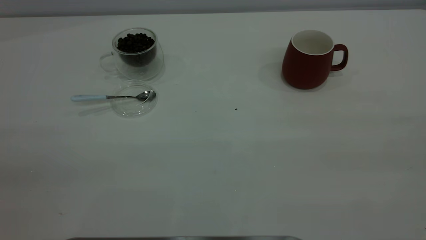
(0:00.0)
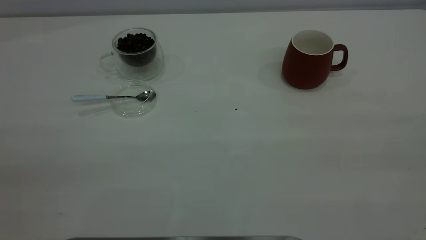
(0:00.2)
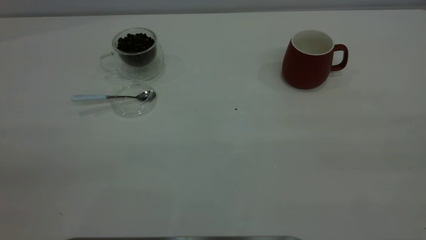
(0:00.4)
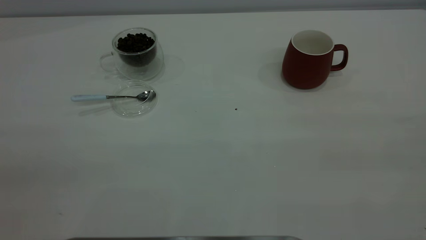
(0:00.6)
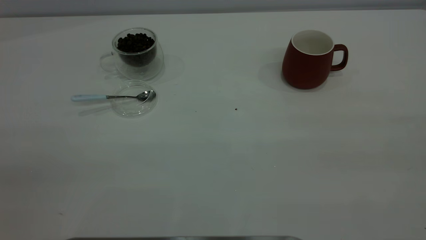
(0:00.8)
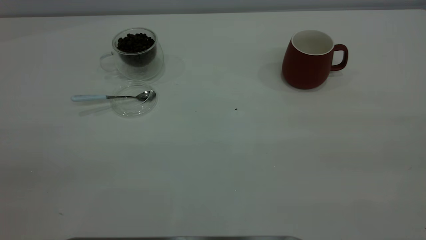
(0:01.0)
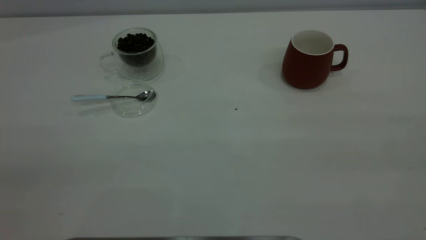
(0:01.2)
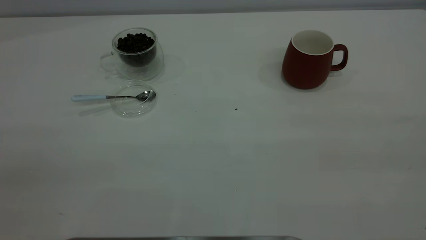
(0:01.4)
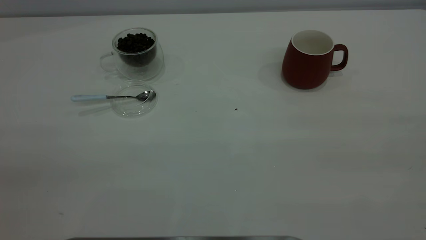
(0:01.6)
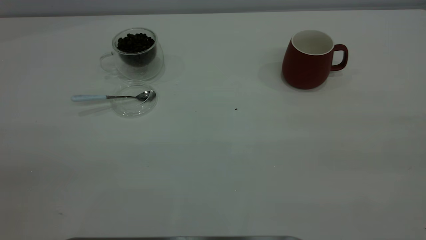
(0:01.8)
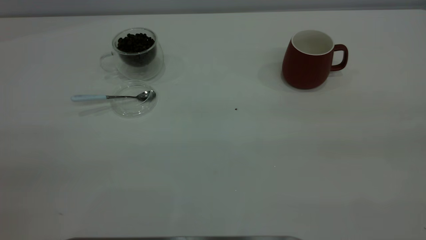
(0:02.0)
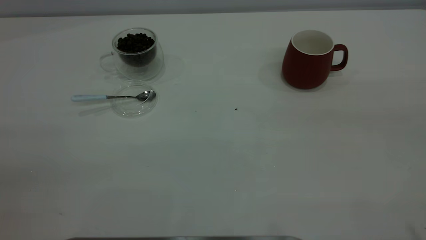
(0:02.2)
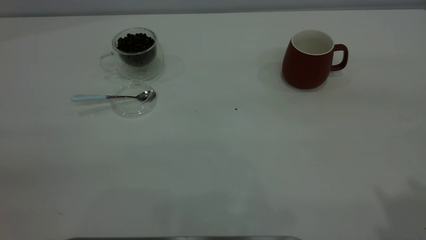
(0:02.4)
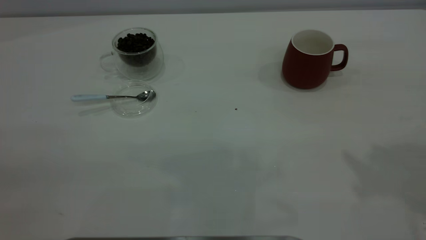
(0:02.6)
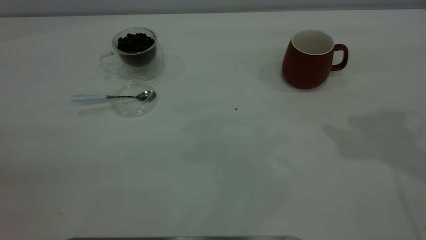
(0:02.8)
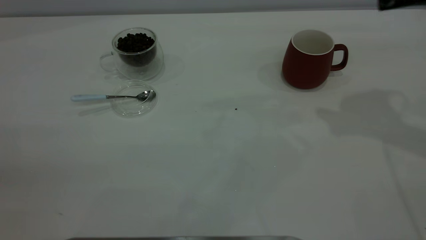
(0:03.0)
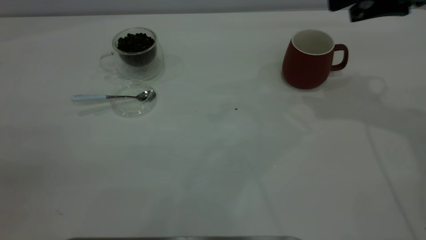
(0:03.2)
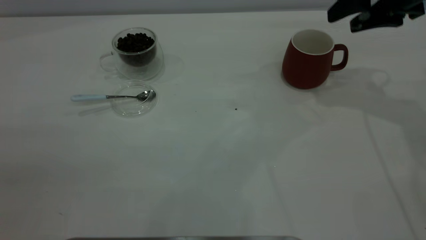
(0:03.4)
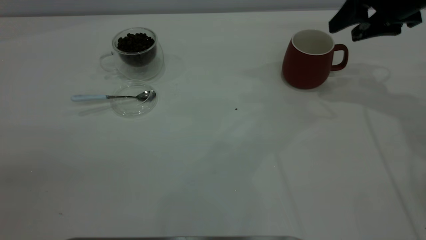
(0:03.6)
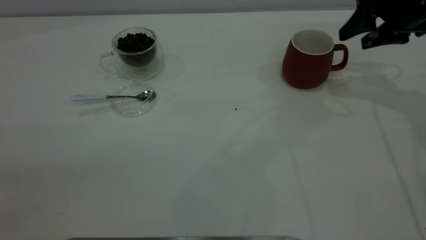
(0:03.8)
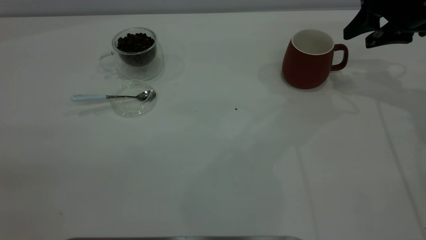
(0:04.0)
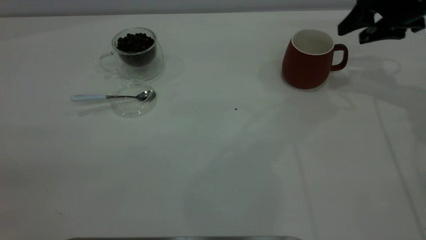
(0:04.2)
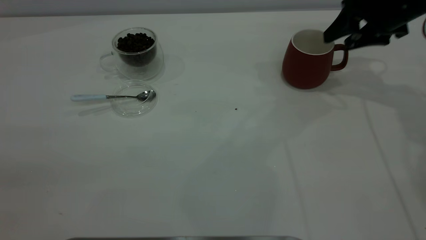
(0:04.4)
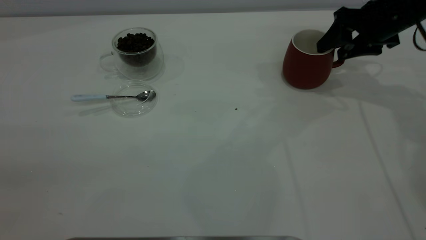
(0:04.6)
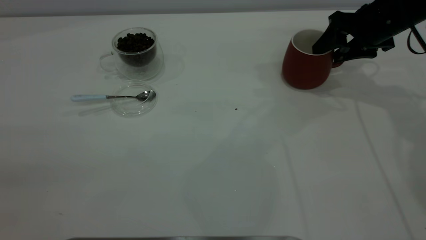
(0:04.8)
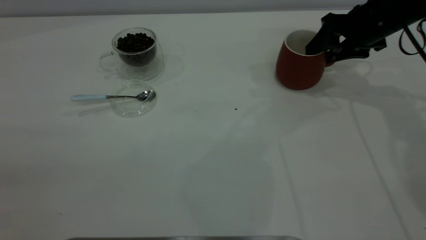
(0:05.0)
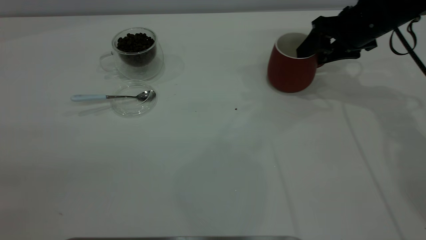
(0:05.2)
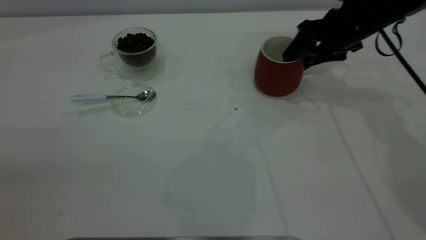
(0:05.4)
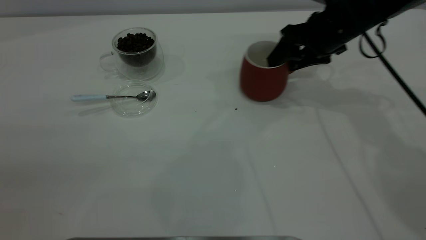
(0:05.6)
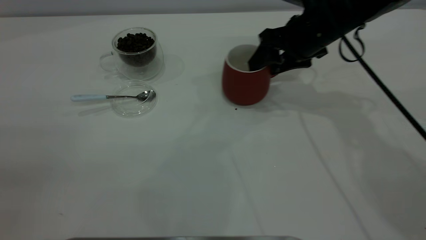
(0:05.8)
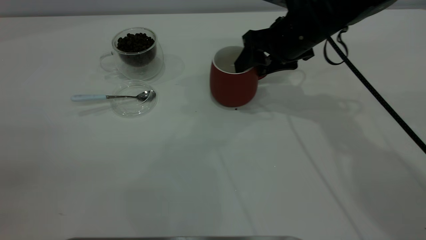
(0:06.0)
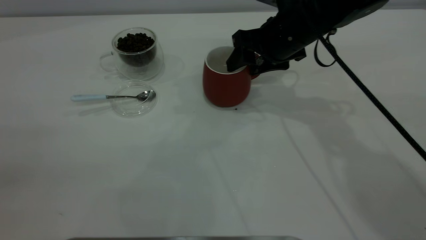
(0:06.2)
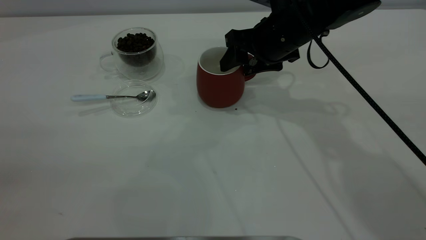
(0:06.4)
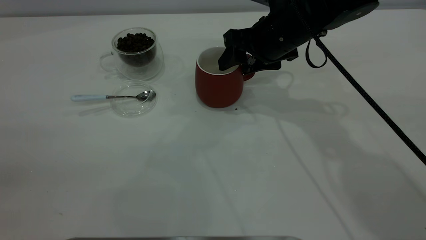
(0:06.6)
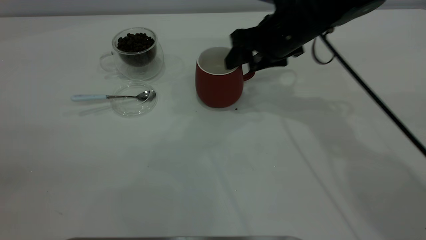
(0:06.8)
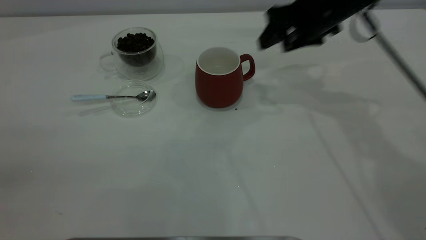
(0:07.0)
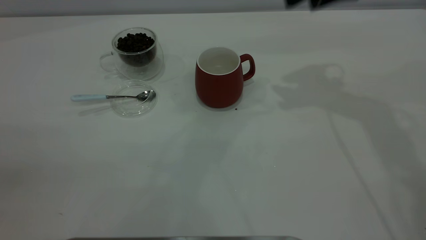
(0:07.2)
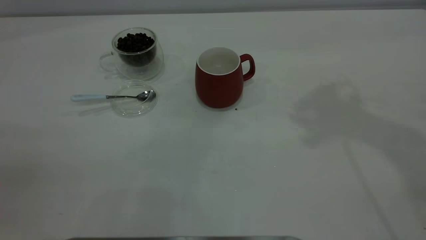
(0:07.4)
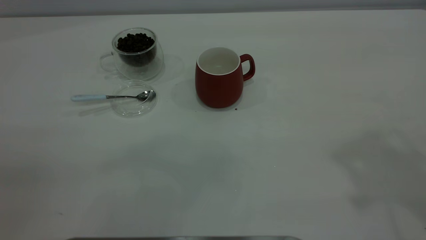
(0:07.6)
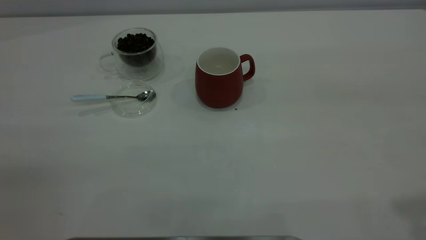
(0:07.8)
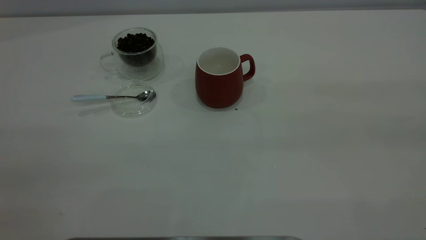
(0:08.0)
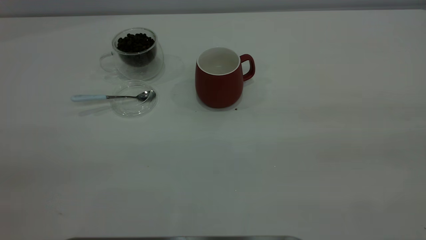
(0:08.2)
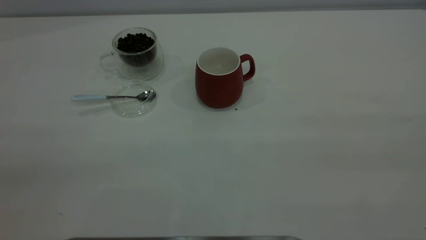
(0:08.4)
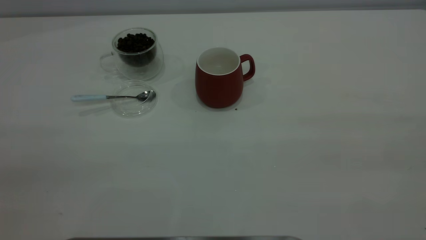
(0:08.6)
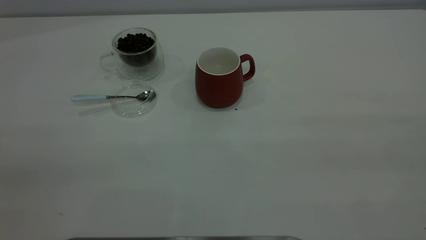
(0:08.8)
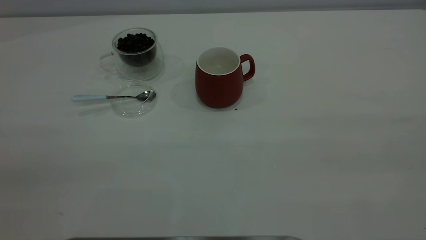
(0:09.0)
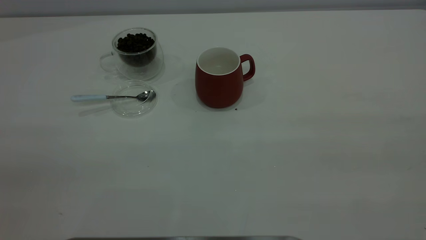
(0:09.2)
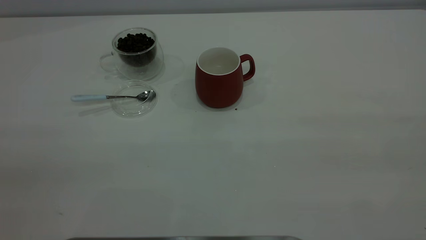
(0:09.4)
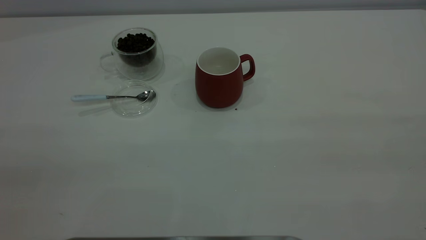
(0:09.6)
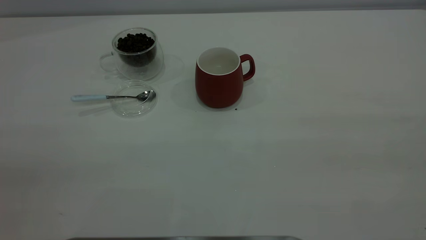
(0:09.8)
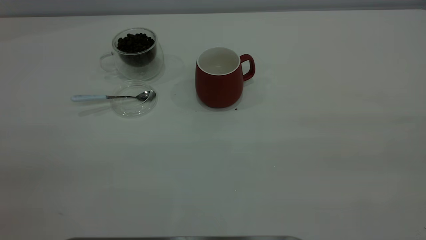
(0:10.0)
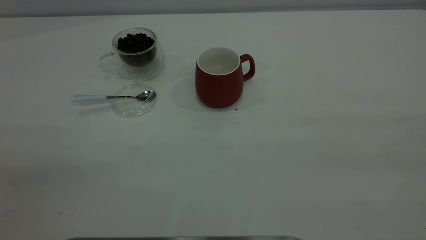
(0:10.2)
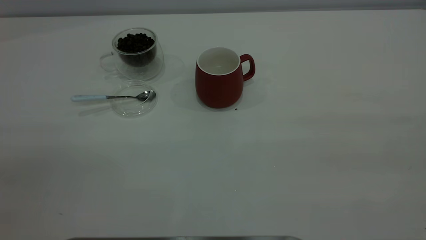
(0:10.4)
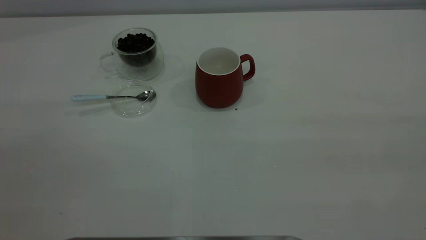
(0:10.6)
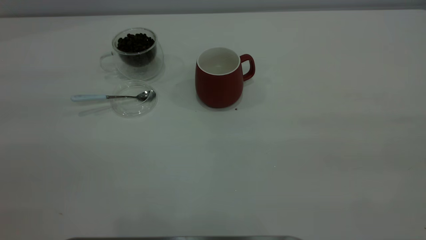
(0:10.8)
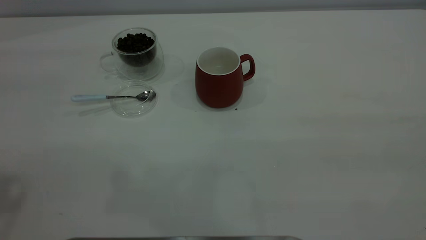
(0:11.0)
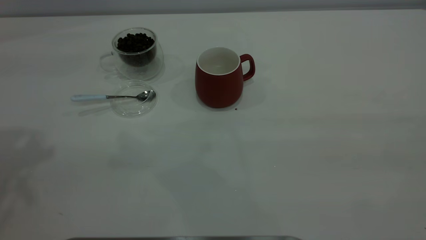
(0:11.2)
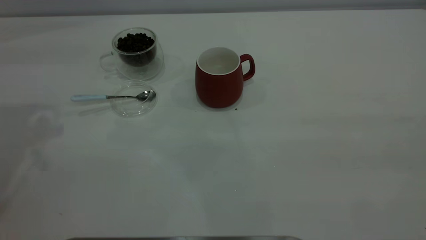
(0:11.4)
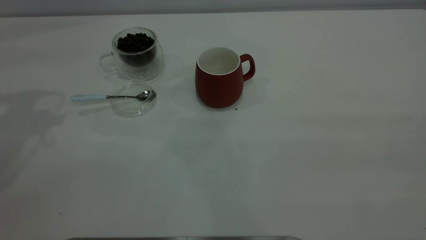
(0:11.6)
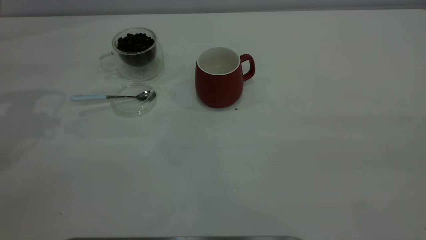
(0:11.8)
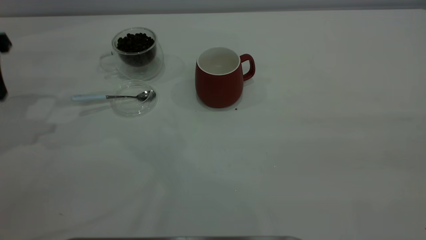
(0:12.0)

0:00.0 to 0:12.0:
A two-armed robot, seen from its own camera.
Task of the whole recording: the right gripper place the red cup in the center of the table, the left gripper take the blue spoon from the cup lid and scoop out the coffee beans from the coffee cup and put them into the red cup, the left gripper put the spoon back into the cup lid.
Step, 0:00.0 to 0:06.8: Move the cup to the center of view.
0:00.0 to 0:01.6: Both grippers stay about where they are.
0:03.0 to 0:04.4: The right gripper is displaced downward and forward by approximately 15 cm.
0:04.4 to 0:06.0: The right gripper travels to the left by about 15 cm.
0:06.0 to 0:07.6: The right gripper travels upward, backward and to the right by about 40 cm.

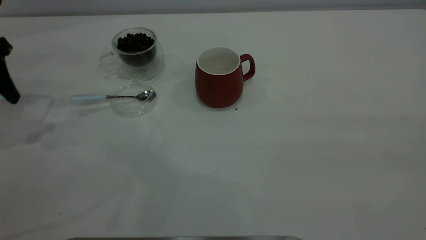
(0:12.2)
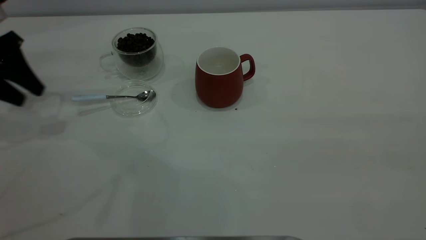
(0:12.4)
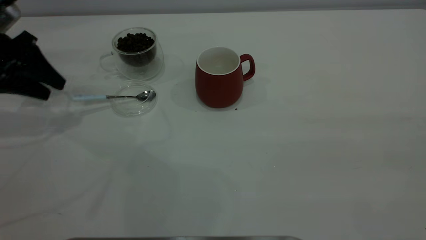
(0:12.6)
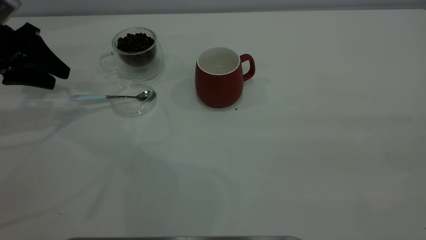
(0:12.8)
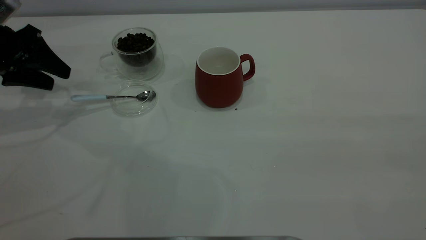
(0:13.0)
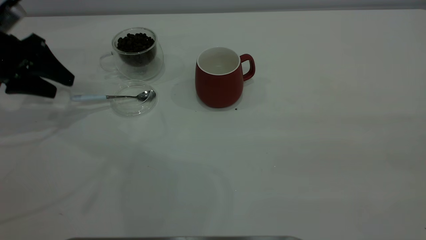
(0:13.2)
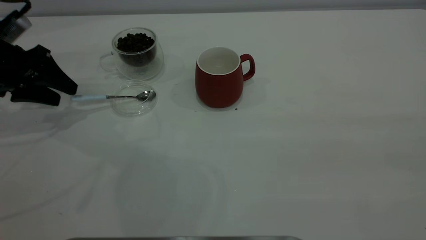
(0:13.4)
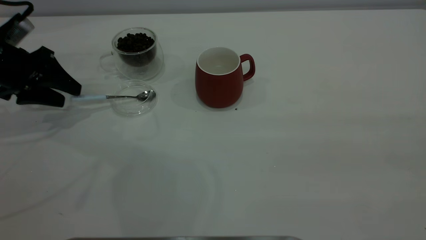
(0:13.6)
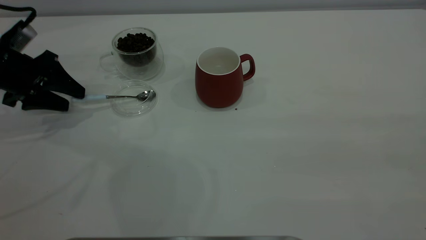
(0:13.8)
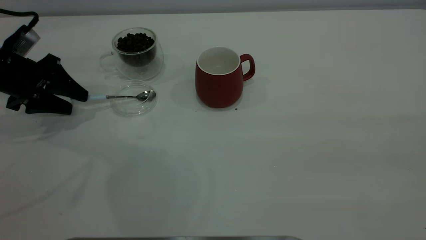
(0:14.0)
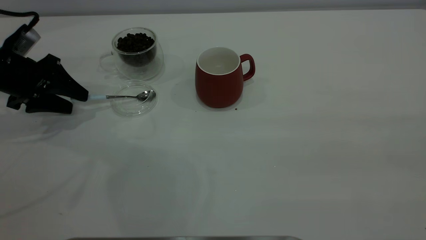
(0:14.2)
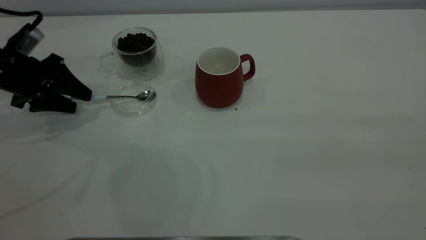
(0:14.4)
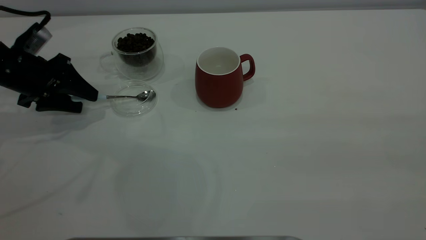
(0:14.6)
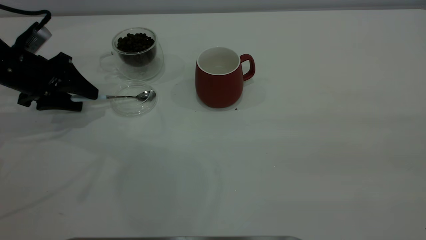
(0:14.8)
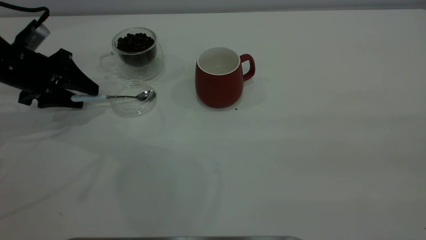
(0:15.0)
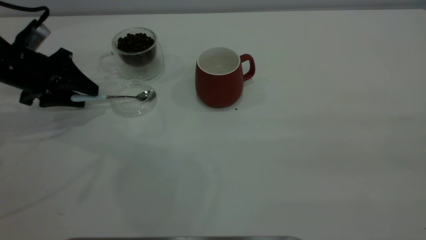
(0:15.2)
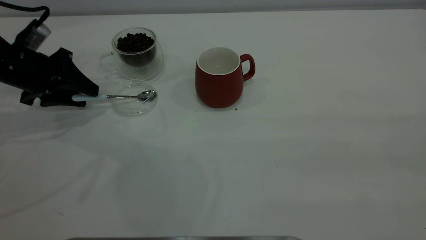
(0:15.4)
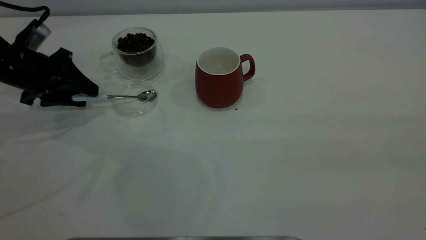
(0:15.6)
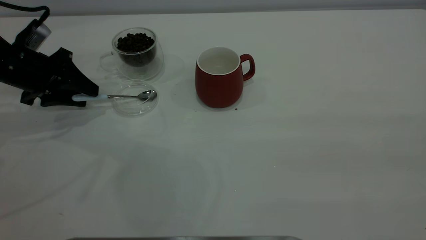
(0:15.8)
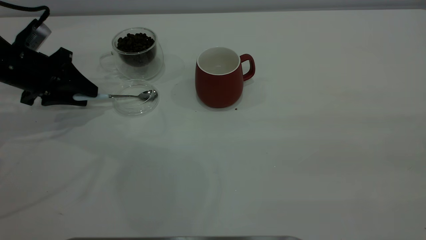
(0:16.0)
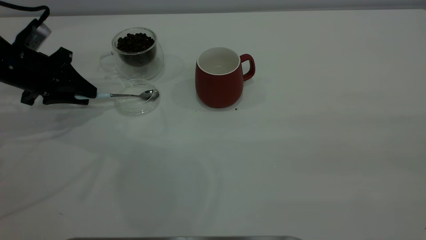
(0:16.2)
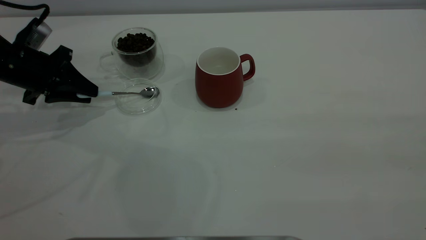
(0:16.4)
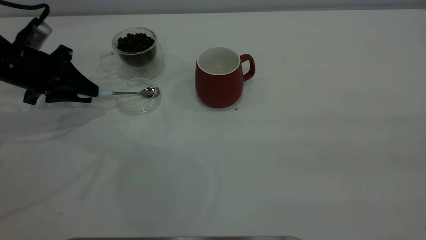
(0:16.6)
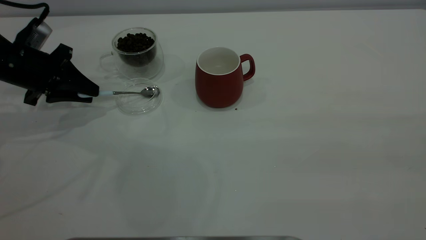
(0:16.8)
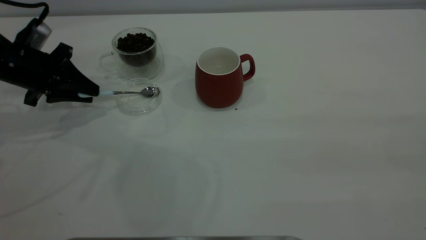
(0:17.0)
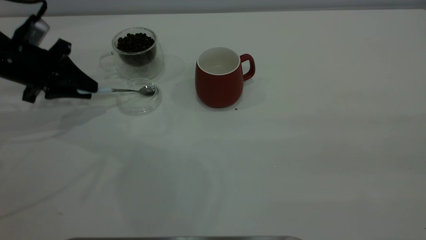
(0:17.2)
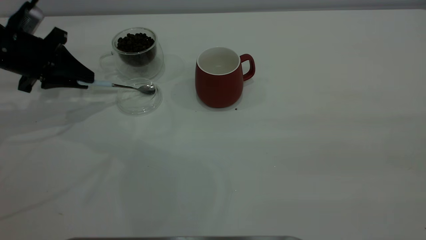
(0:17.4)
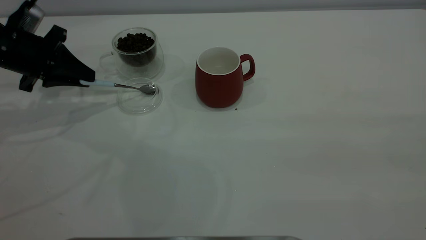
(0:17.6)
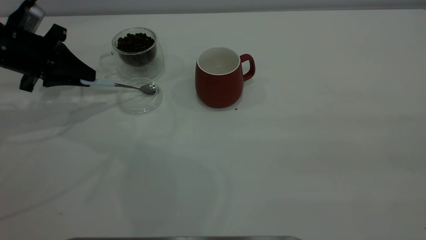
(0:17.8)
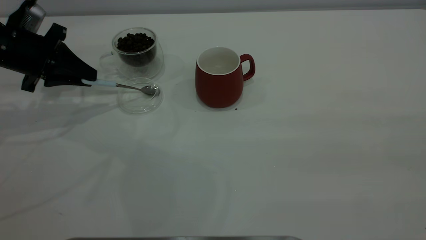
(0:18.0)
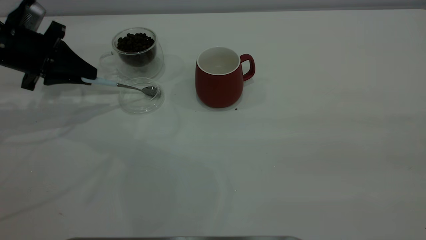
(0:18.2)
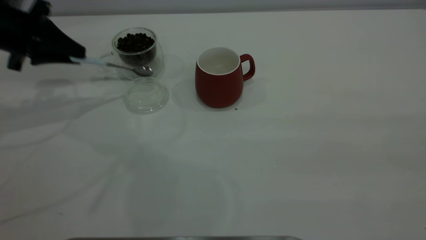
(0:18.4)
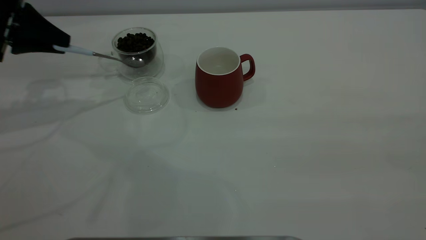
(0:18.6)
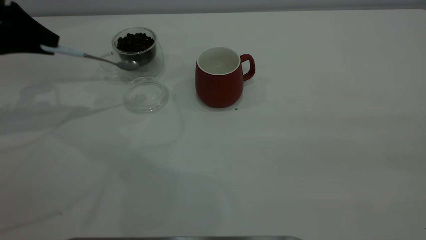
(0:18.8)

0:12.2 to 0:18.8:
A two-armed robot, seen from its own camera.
Task of the whole recording: the right gripper place the red cup in the center of the table, the left gripper take the blue spoon from the cup lid and scoop out the coffee beans from the coffee cup and put them into the red cup, the left gripper put the spoon back into the cup lid.
Step, 0:12.2 to 0:18.8: Pick up the spoon.
0:12.2 to 0:13.8: The left gripper is displaced downward by approximately 10 cm.
0:13.8 to 0:15.4: The grippers make only small movements.
0:15.4 to 0:17.2: The left gripper closes.
0:17.2 to 0:18.8: The left gripper heads upward, covering about 10 cm.
